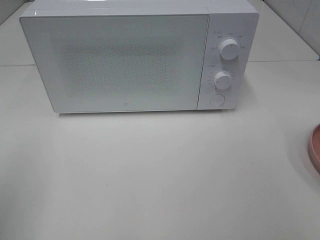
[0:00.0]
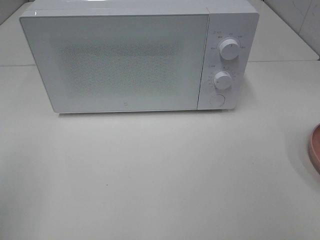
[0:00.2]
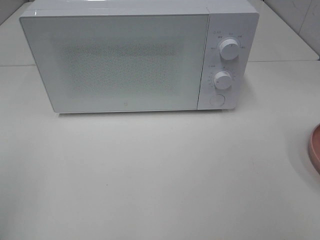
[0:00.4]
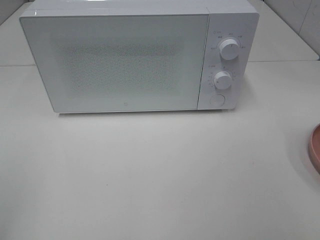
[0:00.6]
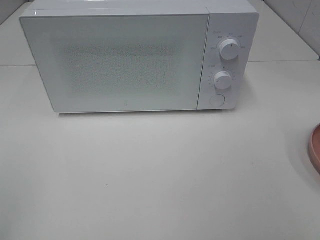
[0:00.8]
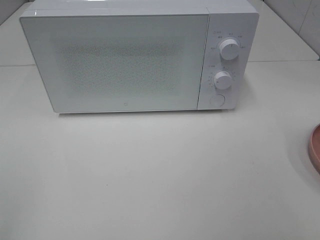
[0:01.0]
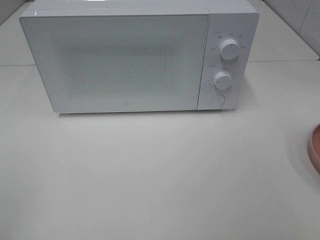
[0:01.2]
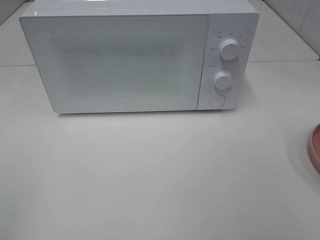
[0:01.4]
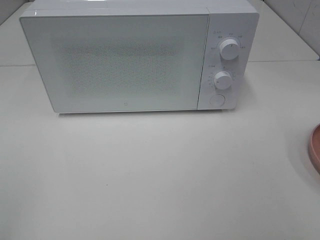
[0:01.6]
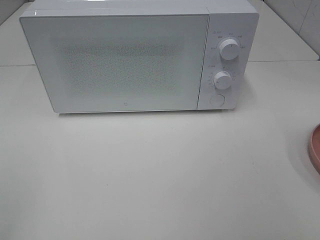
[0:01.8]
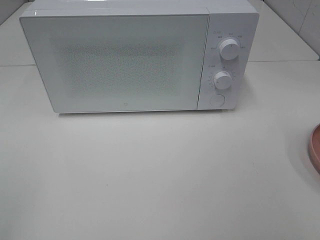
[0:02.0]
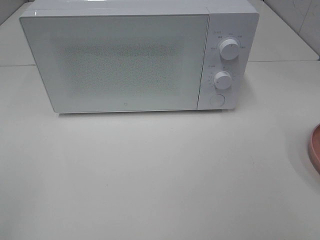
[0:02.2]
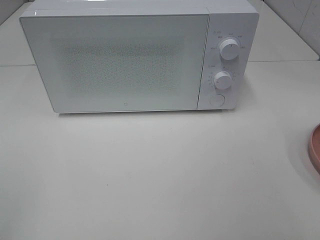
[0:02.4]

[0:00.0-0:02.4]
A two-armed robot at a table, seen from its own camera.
Task of the whole recording: Heat the burger.
0:01.2 to 0:02.4: Both grippers stay about where they are.

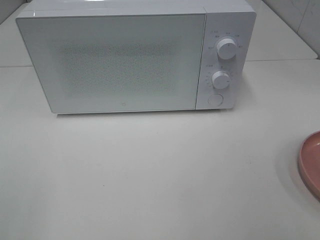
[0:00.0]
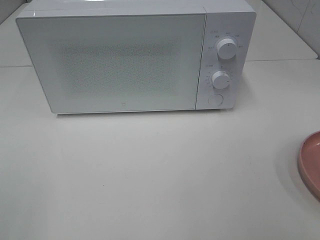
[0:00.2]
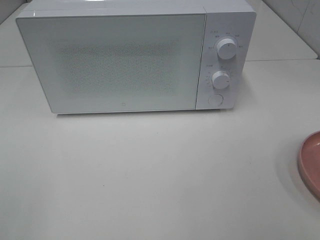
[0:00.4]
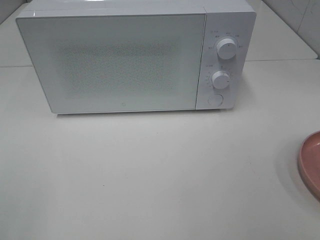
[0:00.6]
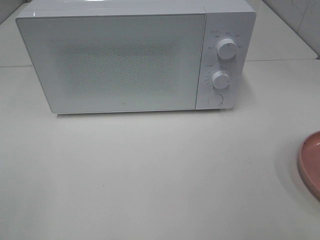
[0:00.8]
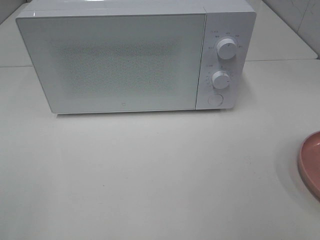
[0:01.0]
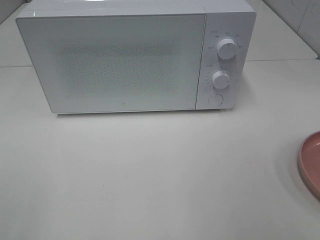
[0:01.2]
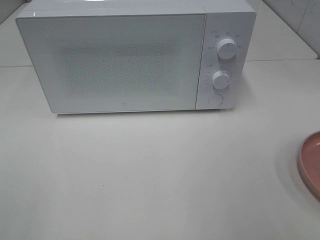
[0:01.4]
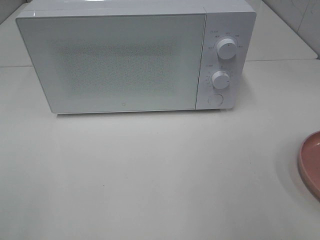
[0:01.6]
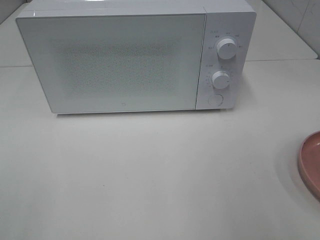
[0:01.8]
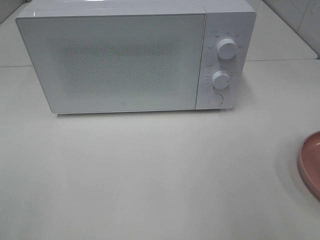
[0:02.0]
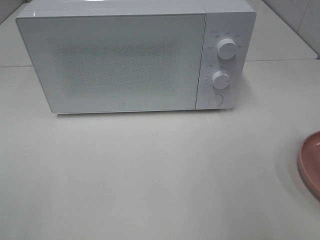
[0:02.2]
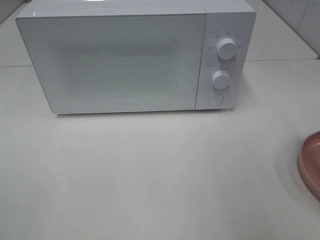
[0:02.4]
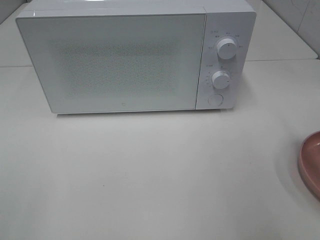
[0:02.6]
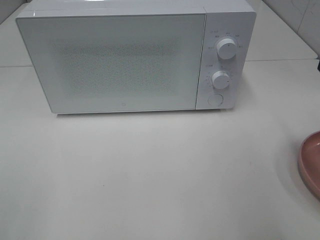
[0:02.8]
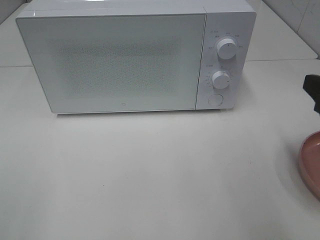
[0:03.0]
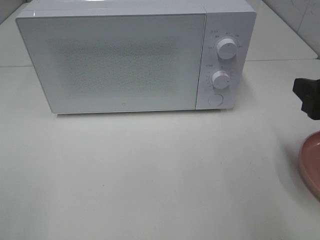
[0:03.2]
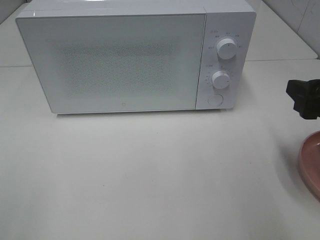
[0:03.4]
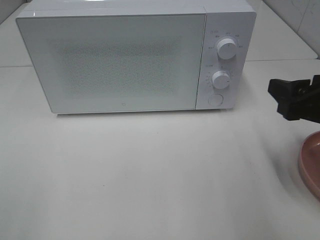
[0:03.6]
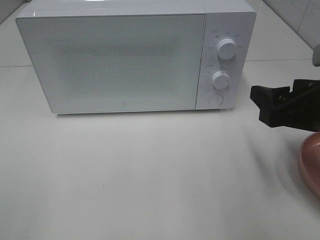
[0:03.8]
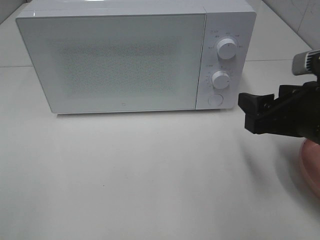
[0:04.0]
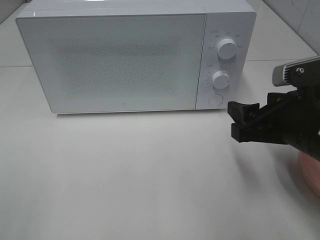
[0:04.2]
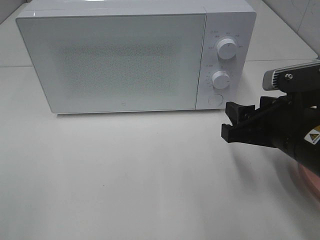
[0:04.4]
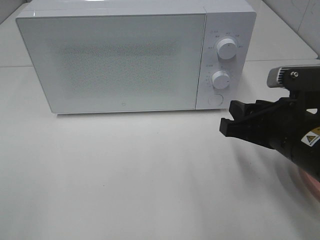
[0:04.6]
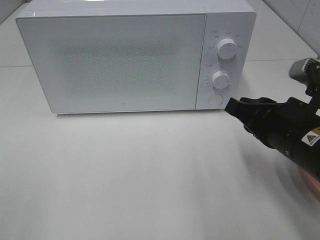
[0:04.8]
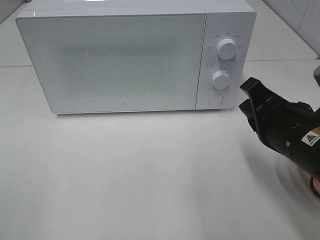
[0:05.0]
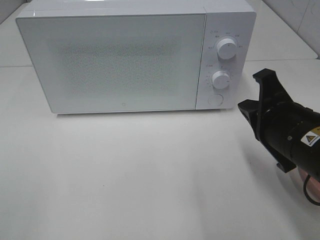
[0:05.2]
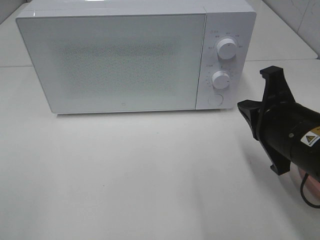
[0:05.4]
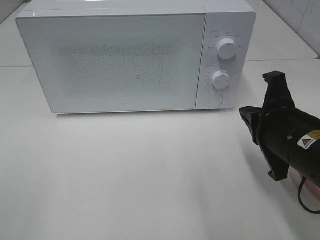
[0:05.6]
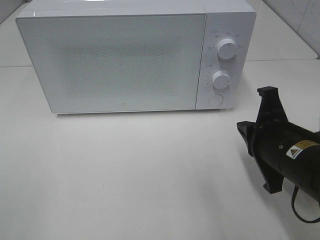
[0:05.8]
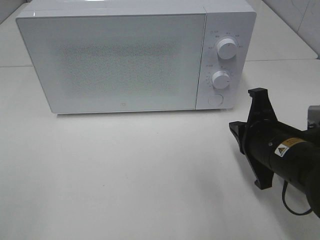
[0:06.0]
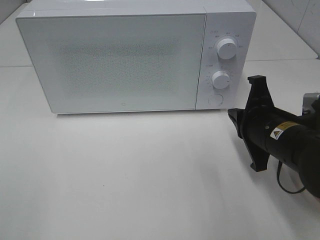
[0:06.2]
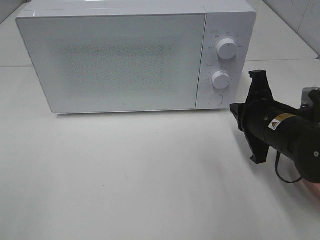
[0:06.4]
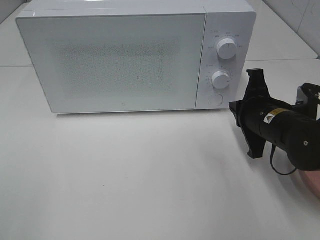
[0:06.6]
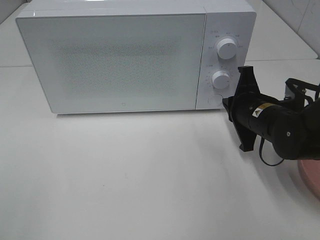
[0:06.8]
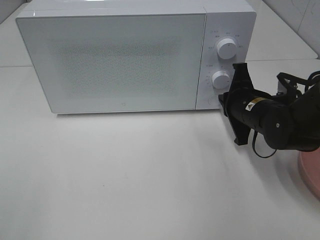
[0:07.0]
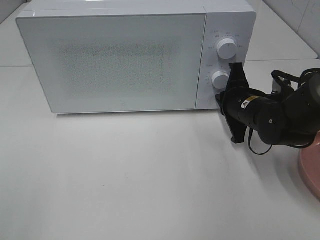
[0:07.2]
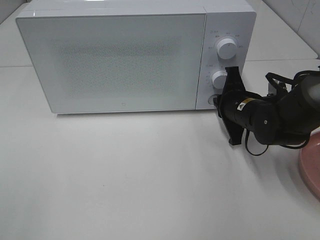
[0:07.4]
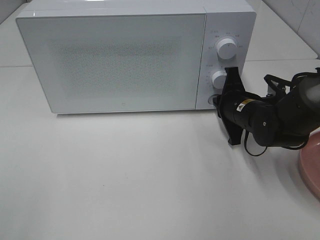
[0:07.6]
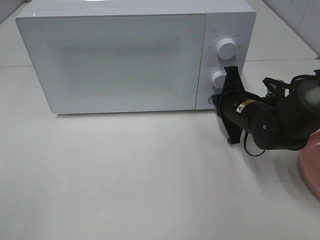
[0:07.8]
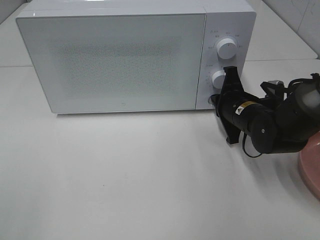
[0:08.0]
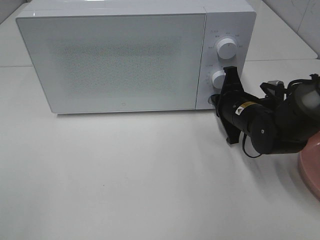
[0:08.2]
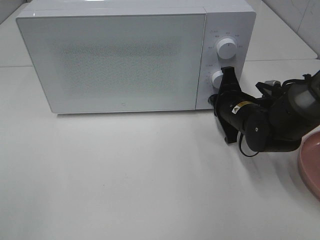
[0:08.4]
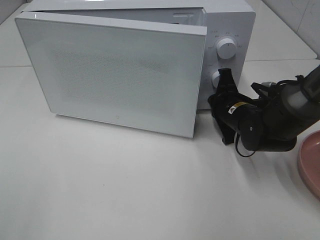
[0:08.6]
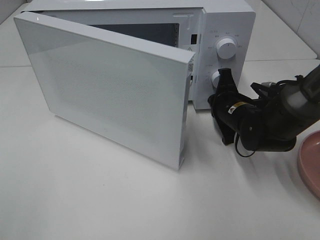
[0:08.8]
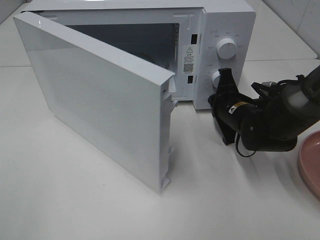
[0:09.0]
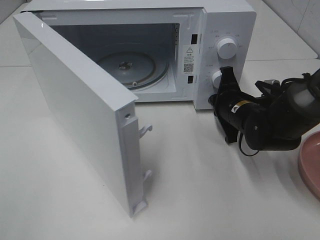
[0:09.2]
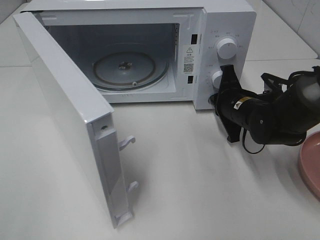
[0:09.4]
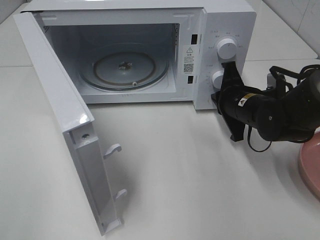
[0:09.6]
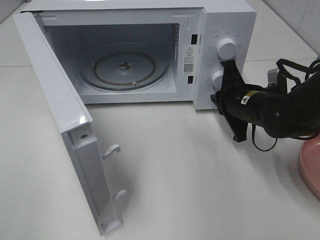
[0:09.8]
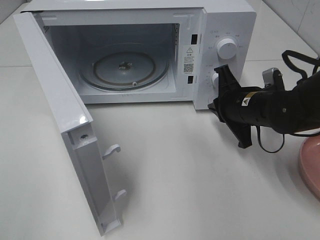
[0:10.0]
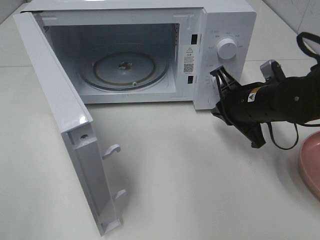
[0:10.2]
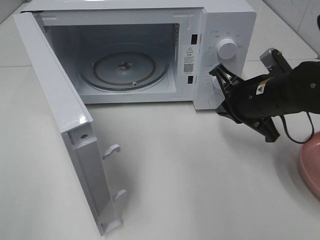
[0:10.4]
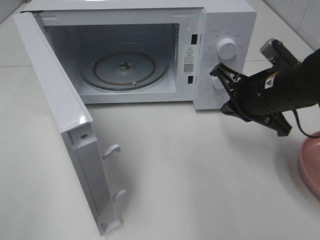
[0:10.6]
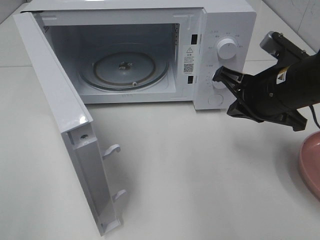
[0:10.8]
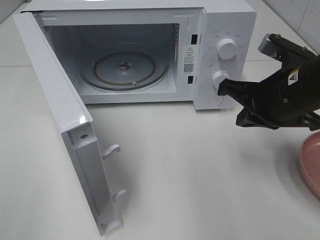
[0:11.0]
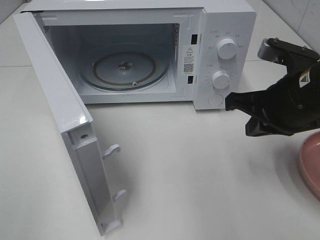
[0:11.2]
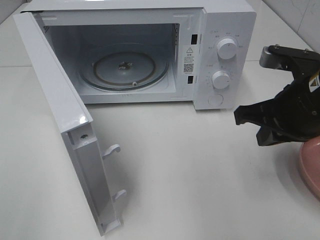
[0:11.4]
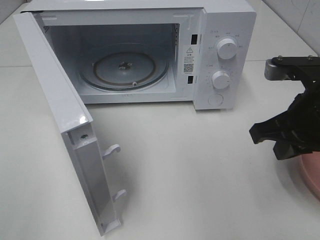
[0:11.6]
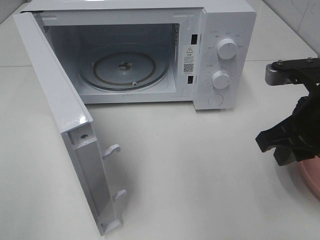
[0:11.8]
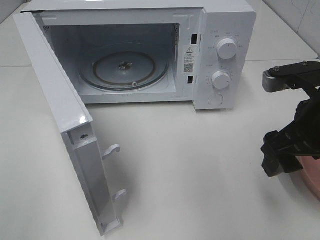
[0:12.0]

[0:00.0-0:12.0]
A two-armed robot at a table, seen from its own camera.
Task of the whole recording: Heat the burger.
Step, 0:00.0 to 0:09.6: Right hand: press the switch.
0:01.6 to 0:03.0: The right gripper is displaced downward and forward by about 10 cm.
0:03.0 to 0:04.4: The right gripper travels to the left and downward by about 10 cm.
0:04.4 to 0:06.0: The right gripper closes.
0:06.0 to 0:07.6: The right gripper goes approximately 15 cm forward.
0:09.0 to 0:10.4: The right gripper moves upward and backward, some 10 cm.
0:10.4 to 0:12.0: The right gripper goes some 10 cm backward and upward, and opens up.

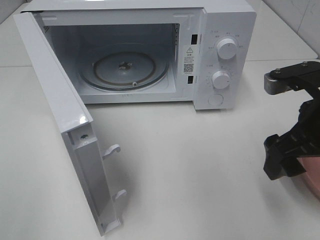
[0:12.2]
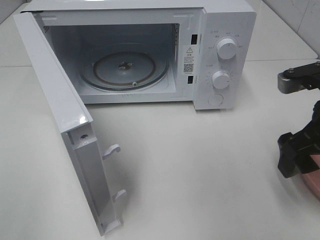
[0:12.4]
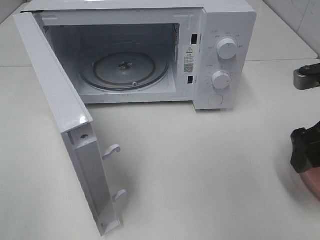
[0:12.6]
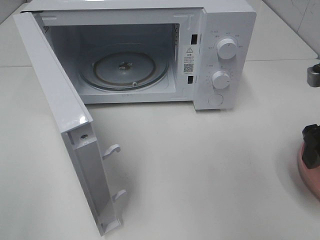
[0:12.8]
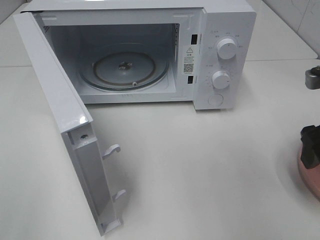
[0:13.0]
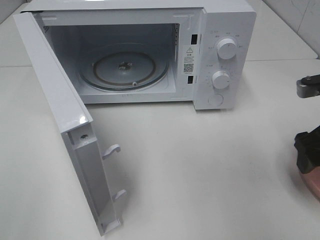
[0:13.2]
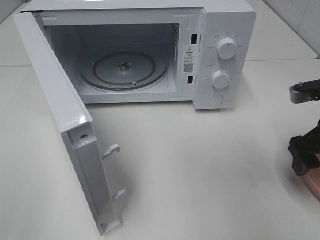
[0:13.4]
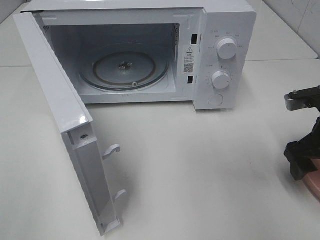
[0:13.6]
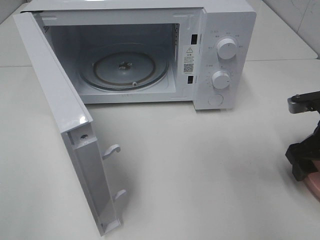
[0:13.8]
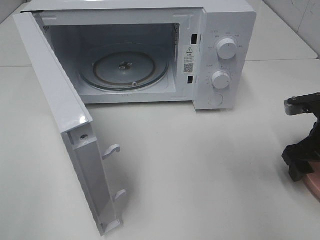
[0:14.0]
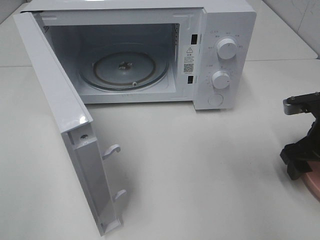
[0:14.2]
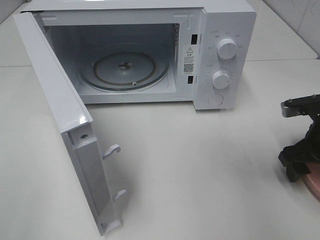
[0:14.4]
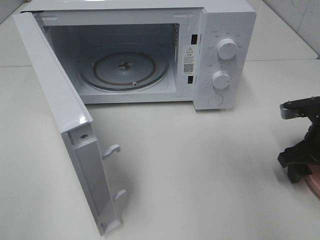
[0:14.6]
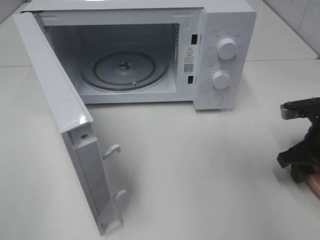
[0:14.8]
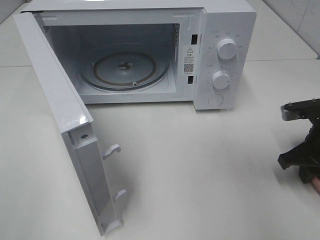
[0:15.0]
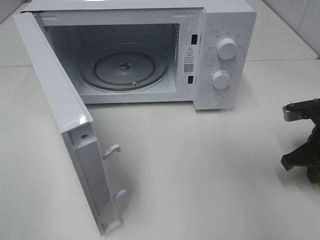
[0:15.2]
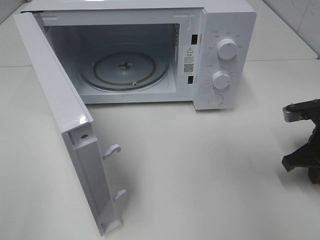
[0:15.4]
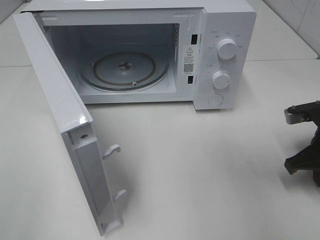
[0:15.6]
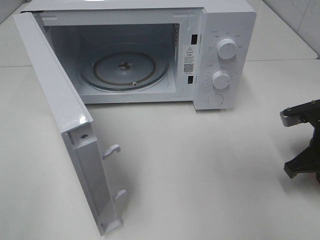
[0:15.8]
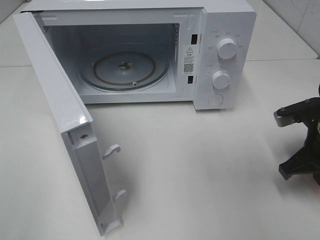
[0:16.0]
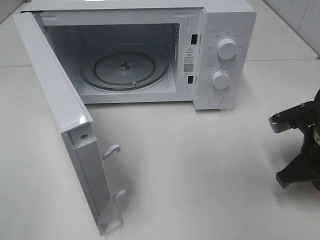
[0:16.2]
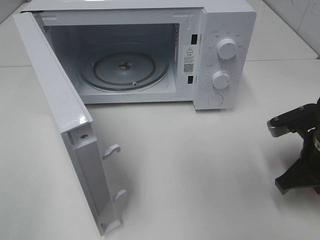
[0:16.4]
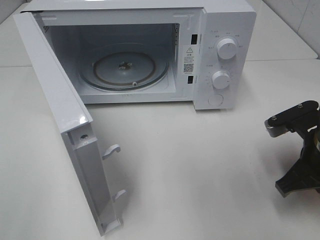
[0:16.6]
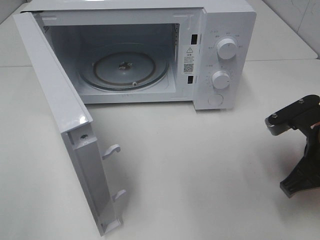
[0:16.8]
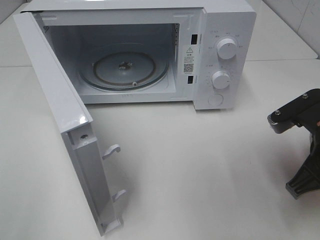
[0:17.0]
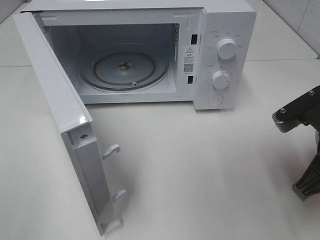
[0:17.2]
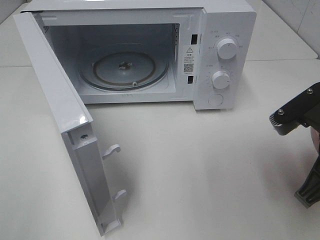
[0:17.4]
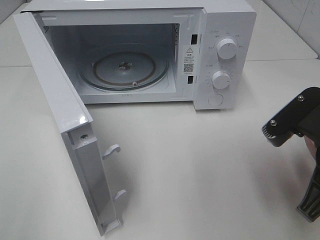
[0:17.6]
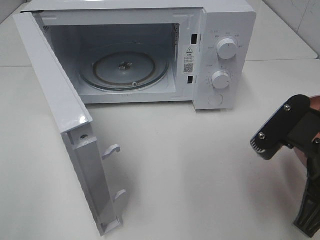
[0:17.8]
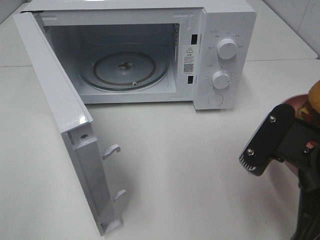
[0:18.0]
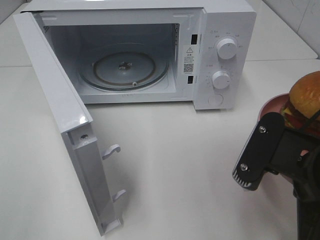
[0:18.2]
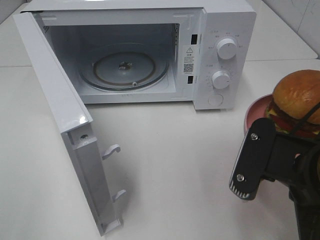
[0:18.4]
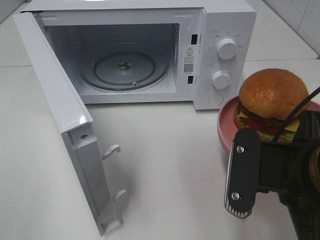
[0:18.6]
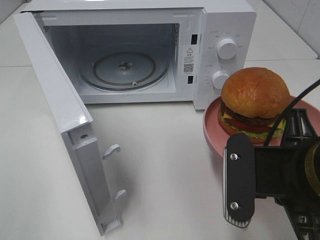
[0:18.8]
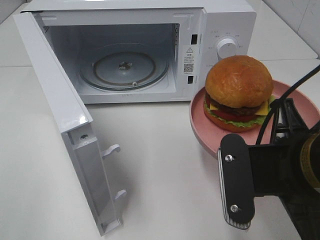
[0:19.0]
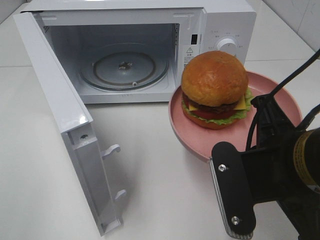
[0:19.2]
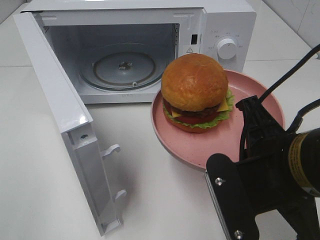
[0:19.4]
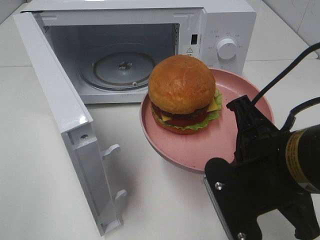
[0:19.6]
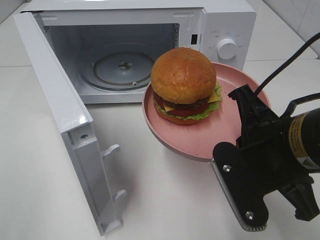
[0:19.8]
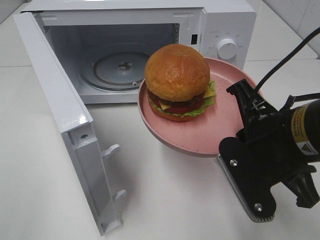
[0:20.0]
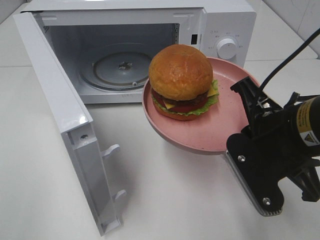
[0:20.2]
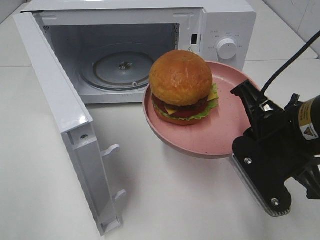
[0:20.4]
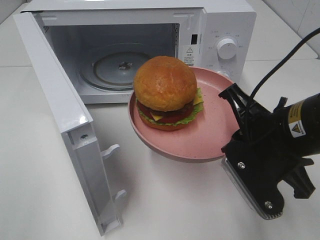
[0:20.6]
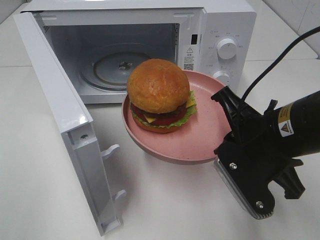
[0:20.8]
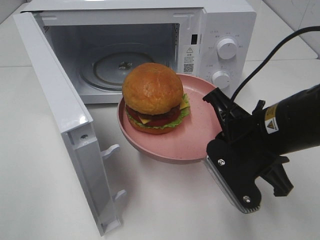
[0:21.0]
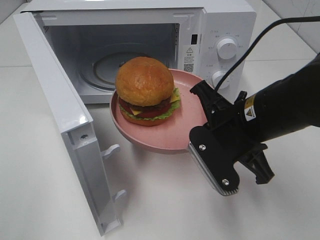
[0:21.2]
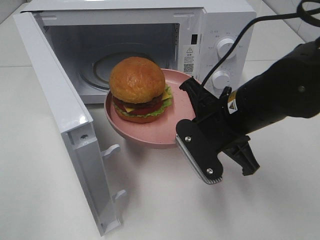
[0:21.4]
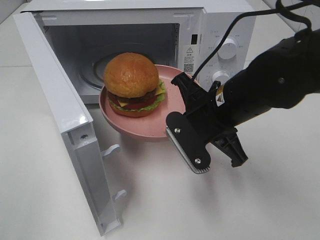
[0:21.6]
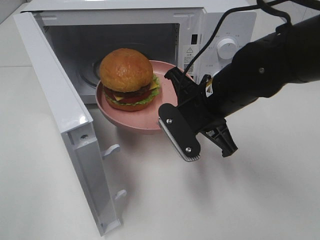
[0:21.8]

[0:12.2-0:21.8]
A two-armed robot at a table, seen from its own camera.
Task of the whole recording: Heat the burger.
Step, 0:12.2 to 0:15.8: Right hand: grab the plate with the hamburger.
0:12.2 to 0:13.8: The right gripper is displaced downward, to the right and forward by approximately 10 cm.
0:13.8 to 0:15.4: The right gripper closes its fingers.
0:15.4 to 0:17.0: The right gripper shifts about 10 cm backward, to the left and upward.
0:17.0 to 0:18.6: The right gripper moves to the left and backward, some 10 cm.
0:18.6 to 0:20.2: The right gripper shifts roughly 5 cm forward.
0:20.2 to 0:21.8: The right gripper shifts about 10 cm forward and to the left.
